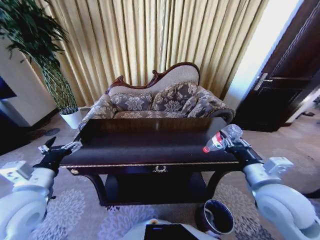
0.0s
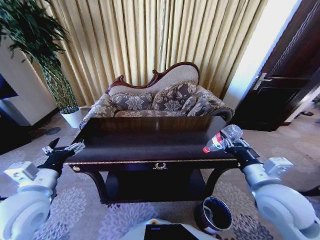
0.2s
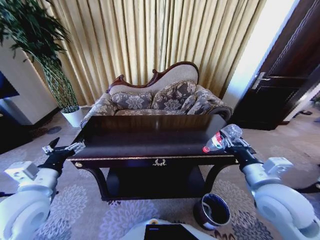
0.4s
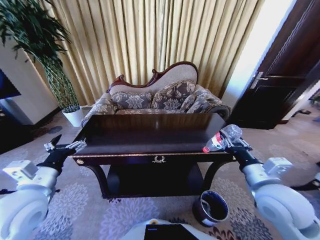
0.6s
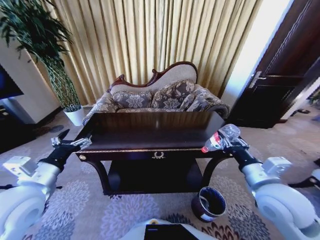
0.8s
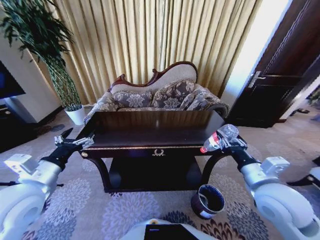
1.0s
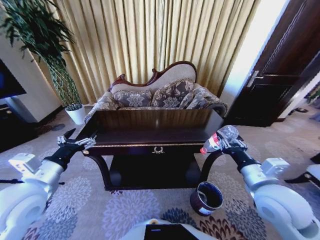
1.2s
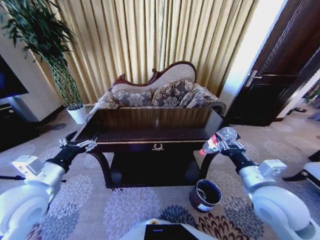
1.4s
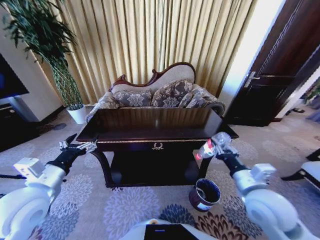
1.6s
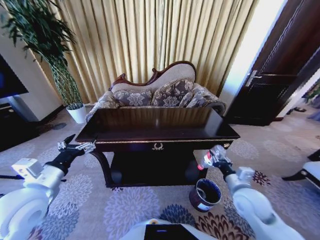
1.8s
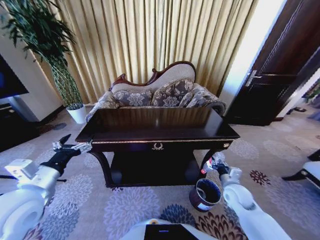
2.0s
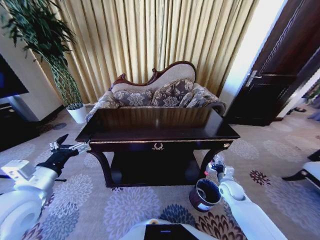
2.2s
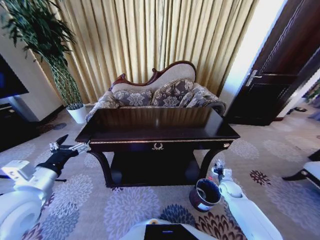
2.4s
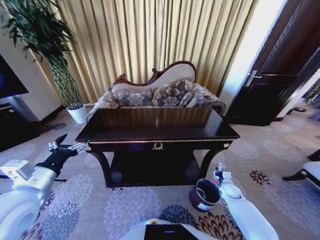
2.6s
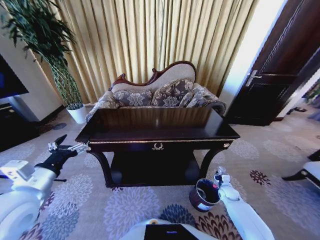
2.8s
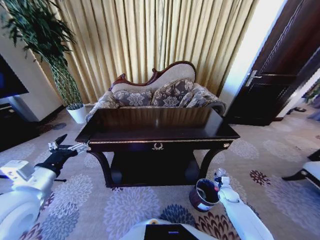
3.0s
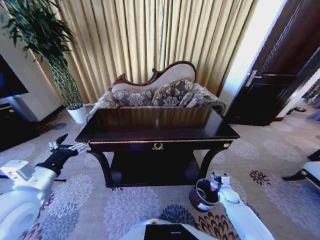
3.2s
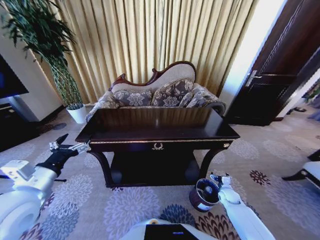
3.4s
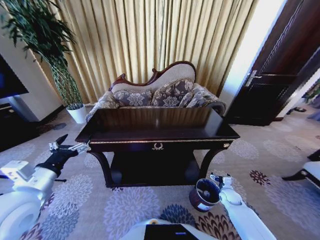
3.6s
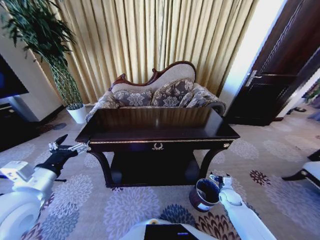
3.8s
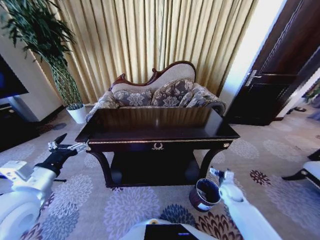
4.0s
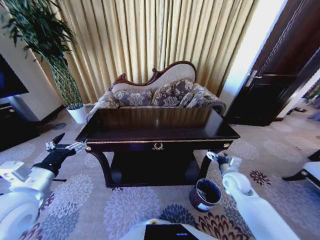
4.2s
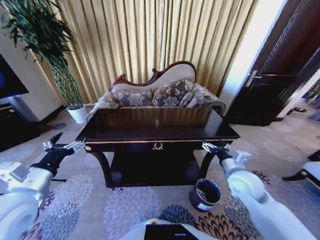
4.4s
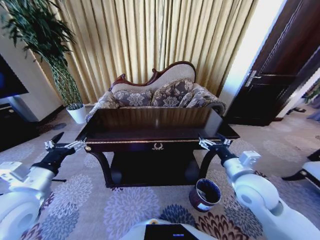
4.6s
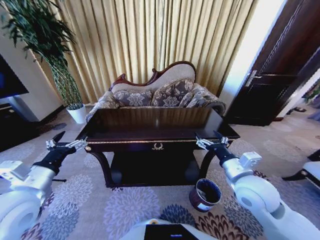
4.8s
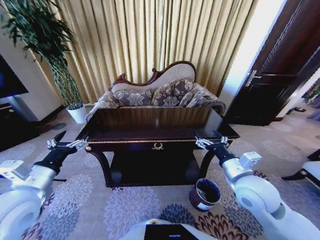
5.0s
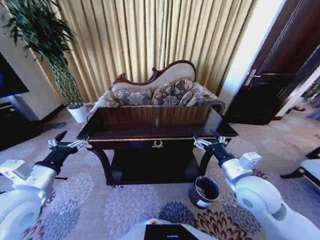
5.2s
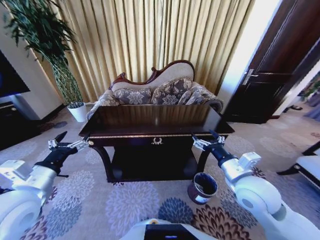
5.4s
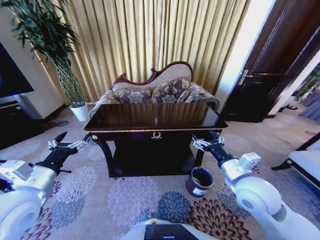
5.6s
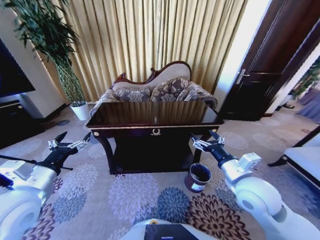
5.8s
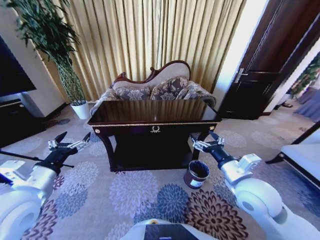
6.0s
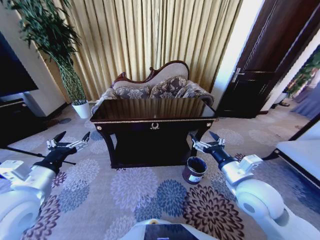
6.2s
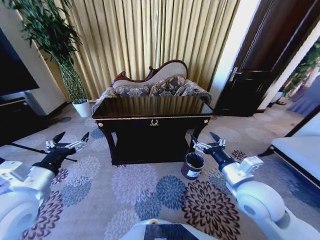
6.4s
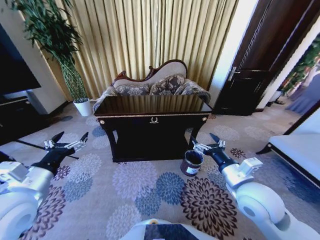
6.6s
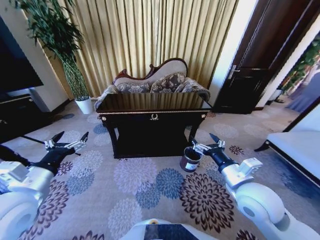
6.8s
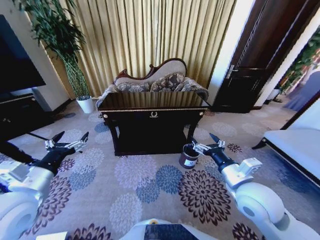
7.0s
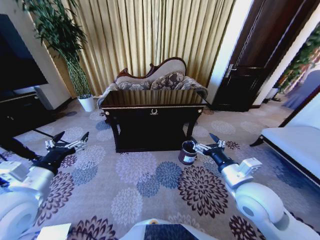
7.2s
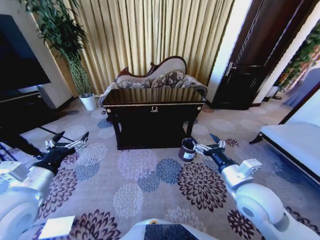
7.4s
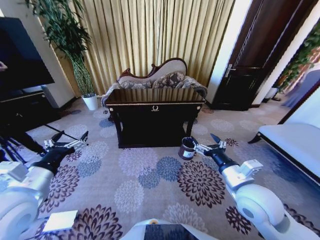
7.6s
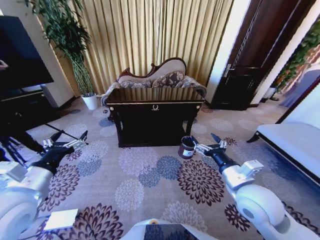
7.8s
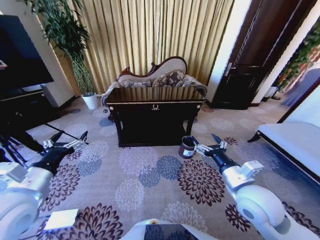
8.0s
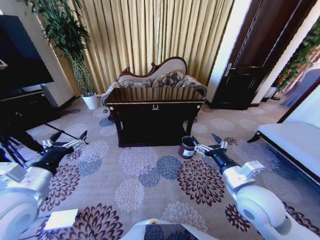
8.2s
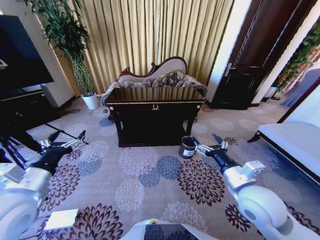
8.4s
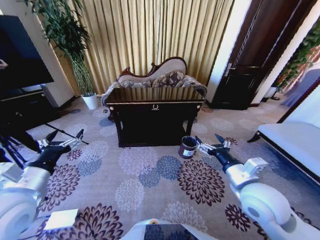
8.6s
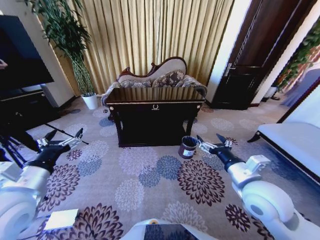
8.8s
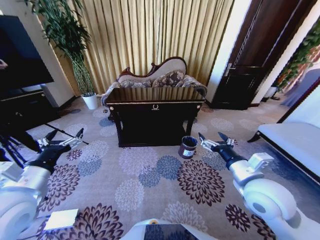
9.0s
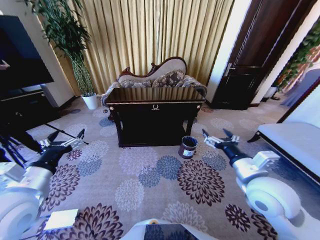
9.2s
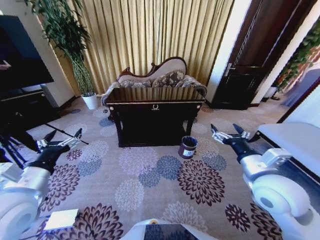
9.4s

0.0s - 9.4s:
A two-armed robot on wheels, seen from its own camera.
Task of the whole recording: Move to the front of the table and place the trash on the table into the trash bin.
1.6s - 3.2s: The right gripper travels downward by some 35 cm, and opens up.
3.2s - 4.8s: The right gripper goes about 35 cm upward and to the left.
7.8s - 9.4s: The right gripper moves about 5 cm.

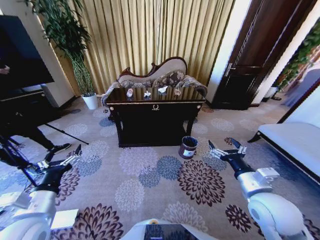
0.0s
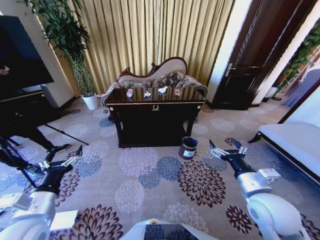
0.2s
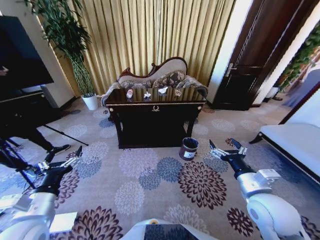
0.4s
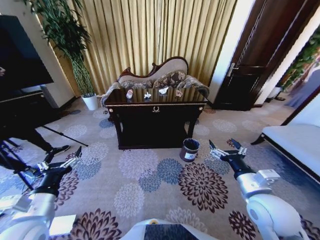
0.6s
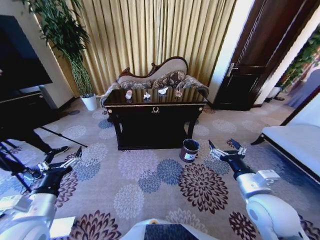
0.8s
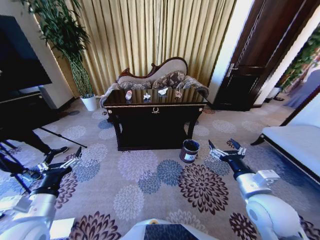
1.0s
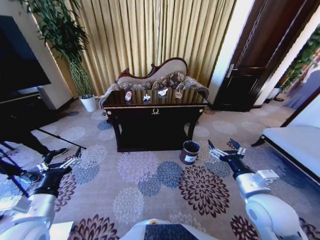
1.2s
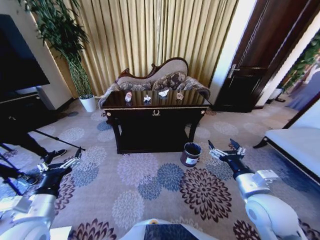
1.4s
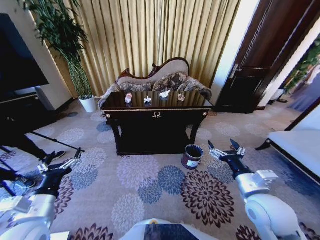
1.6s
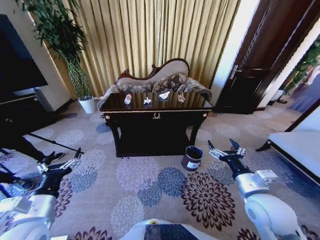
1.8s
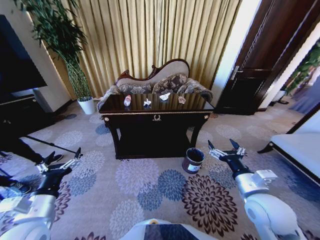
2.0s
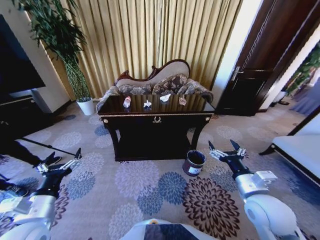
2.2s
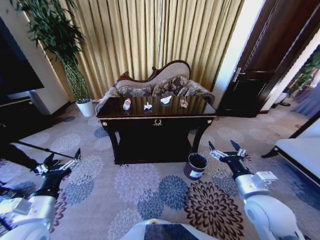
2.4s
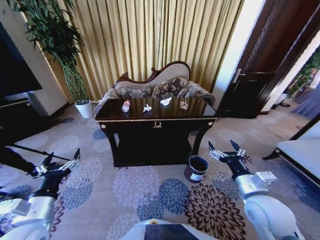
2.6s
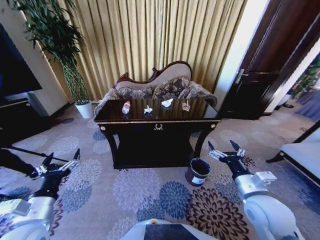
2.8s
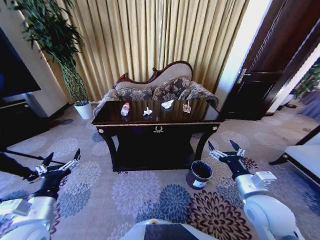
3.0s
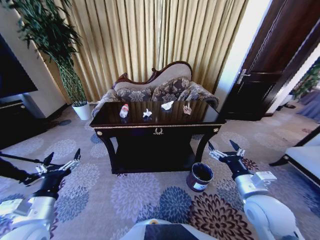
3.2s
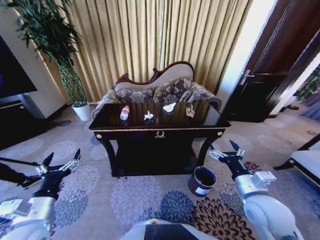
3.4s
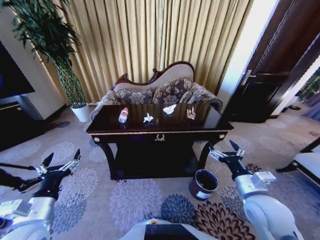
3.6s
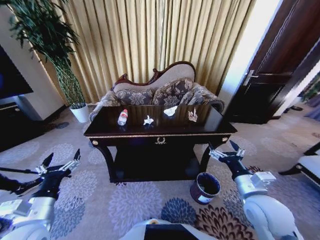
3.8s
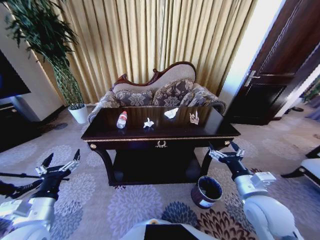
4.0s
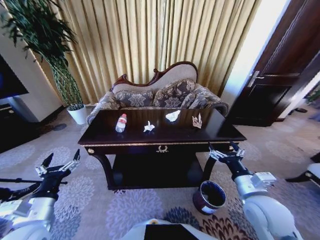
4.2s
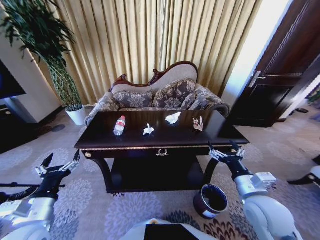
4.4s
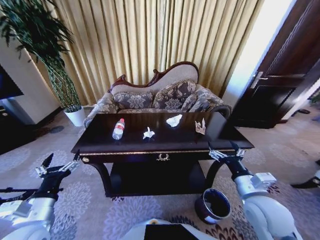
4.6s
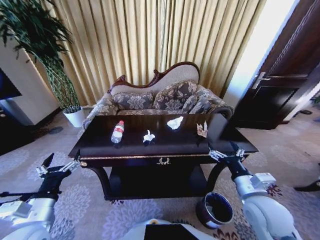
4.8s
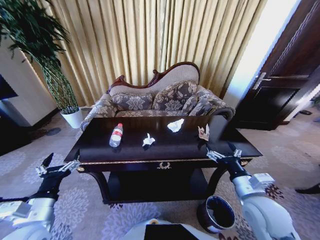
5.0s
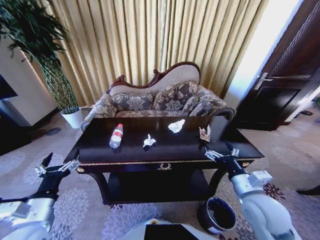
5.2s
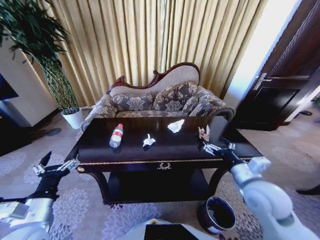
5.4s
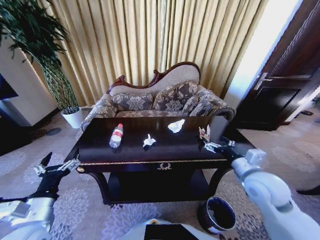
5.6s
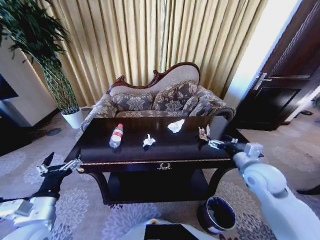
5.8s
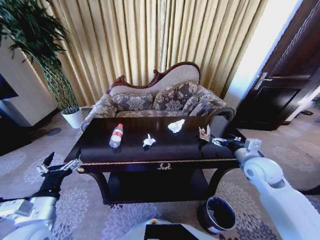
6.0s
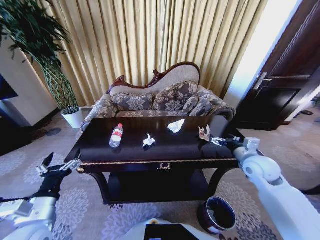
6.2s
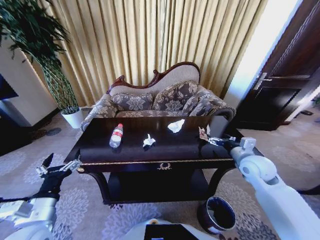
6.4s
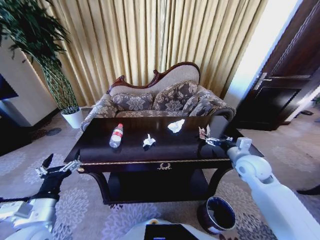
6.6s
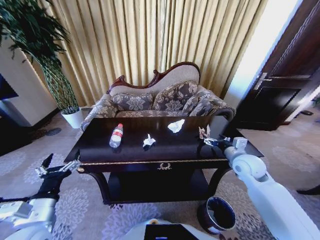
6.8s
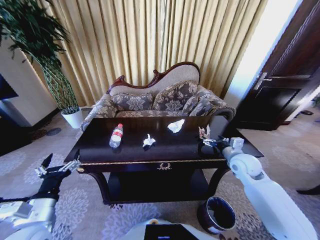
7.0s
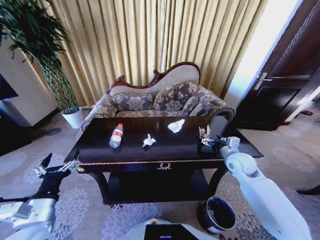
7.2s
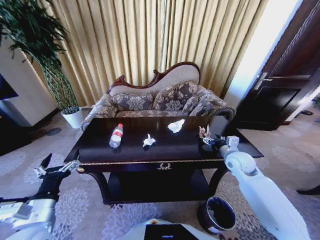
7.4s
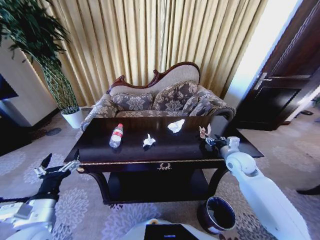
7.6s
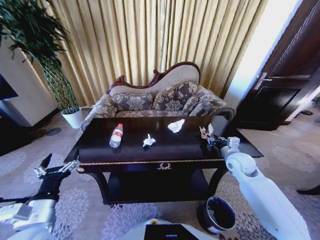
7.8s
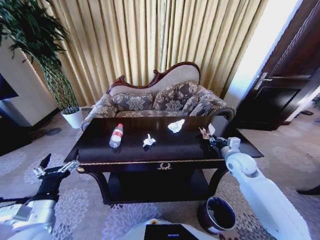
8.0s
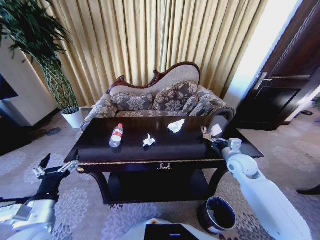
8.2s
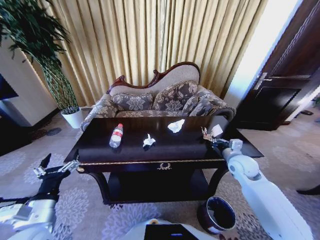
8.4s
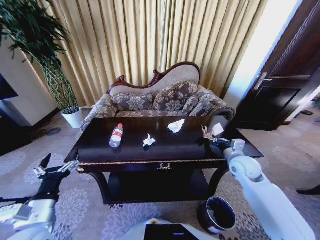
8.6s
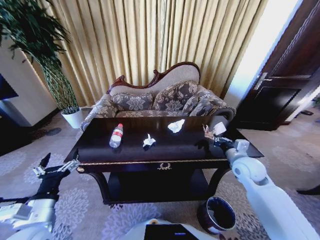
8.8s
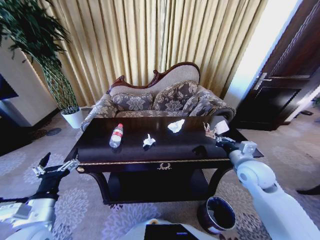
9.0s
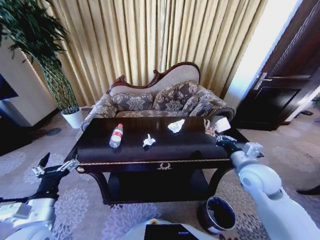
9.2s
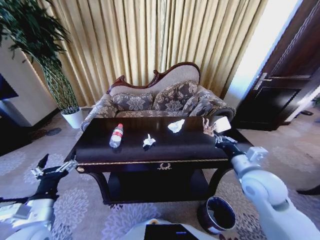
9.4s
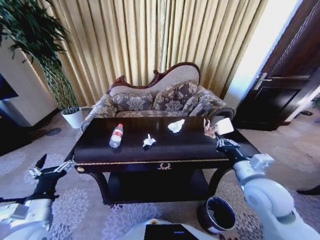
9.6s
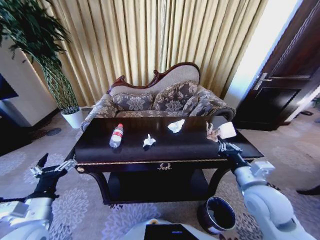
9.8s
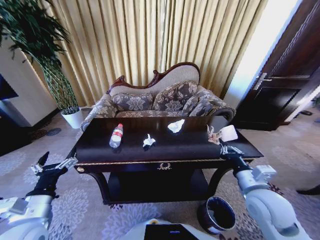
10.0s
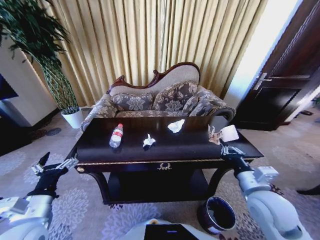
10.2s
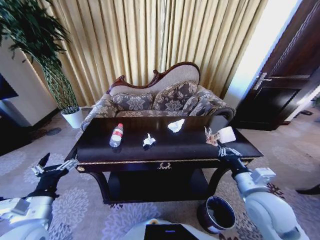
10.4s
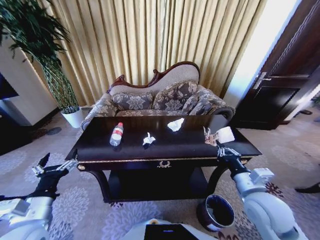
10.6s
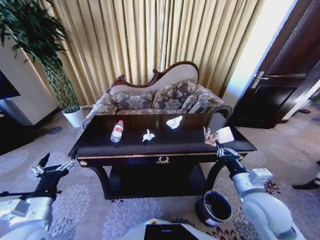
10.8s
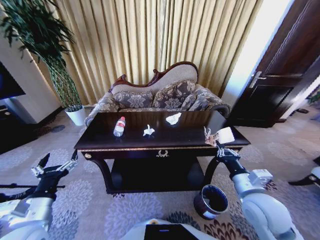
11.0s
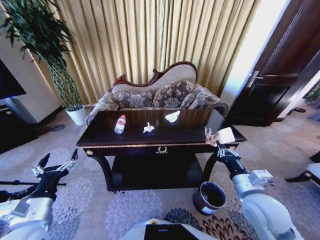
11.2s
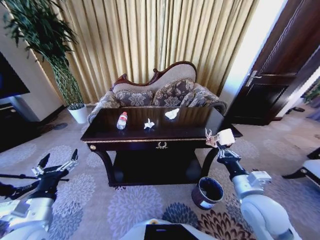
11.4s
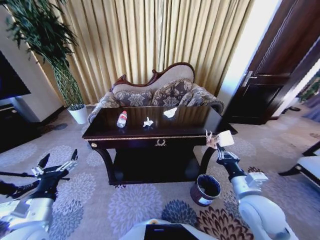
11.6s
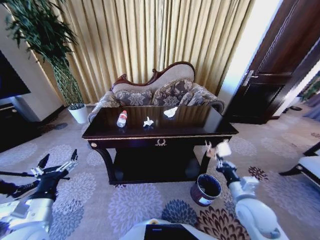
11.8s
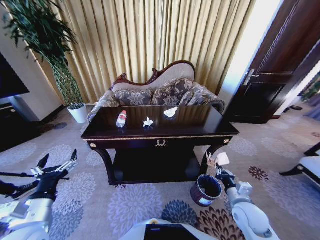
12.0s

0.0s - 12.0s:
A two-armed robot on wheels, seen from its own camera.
Task of the whole recording: Move to the front of the table and place the trash on the table into the trash bin.
4.4s - 6.0s: The right gripper is displaced forward and to the right by about 15 cm.
6.0s - 7.6s: The right gripper travels forward by some 5 cm.
7.6s - 9.0s: The right gripper heads backward, covering some 5 cm, and closes up.
9.0s - 10.4s: The right gripper goes roughly 10 cm backward.
10.4s - 12.0s: The right gripper travels downward by approximately 15 cm.

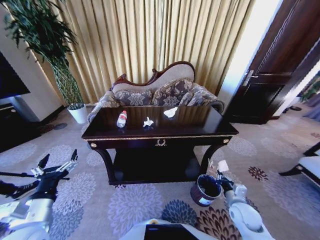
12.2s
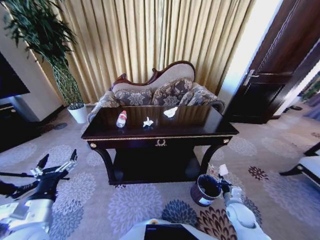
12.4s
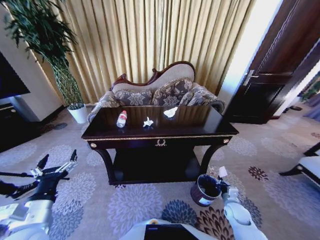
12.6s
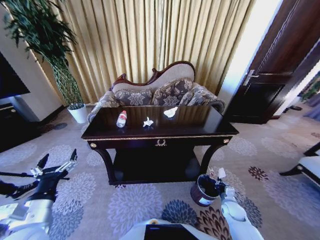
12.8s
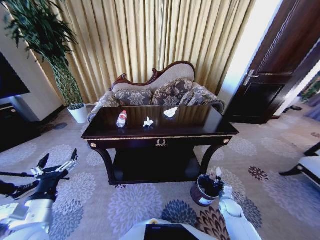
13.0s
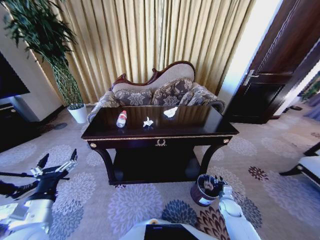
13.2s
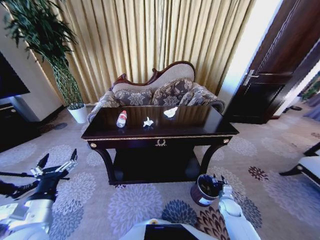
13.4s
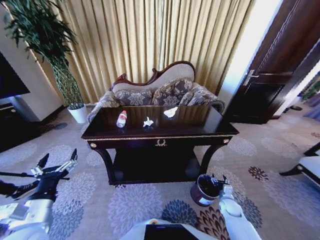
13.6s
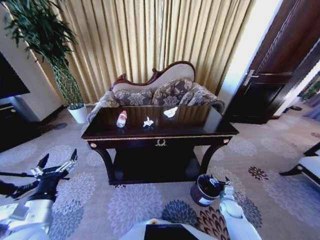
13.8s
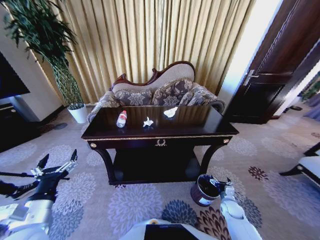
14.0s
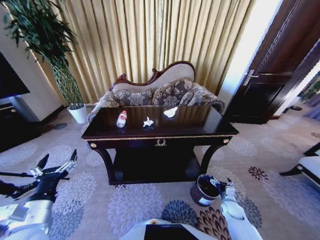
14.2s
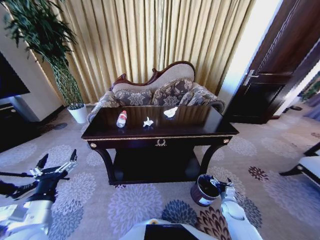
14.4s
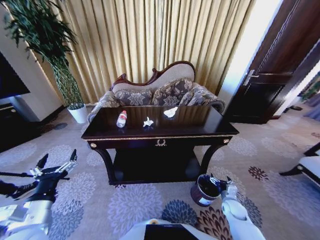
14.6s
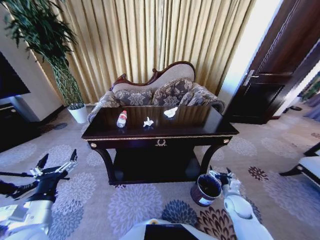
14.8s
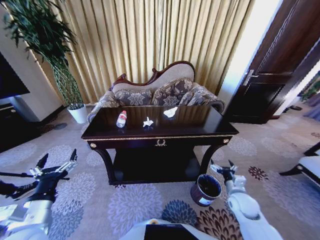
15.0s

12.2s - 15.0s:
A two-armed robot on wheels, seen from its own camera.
Task of the whole recording: Move to the front of the table and place the trash on the table into the trash bin.
12.2s - 13.6s: The right gripper goes about 15 cm downward, and opens up.
13.6s - 15.0s: The right gripper goes some 15 cm upward.
